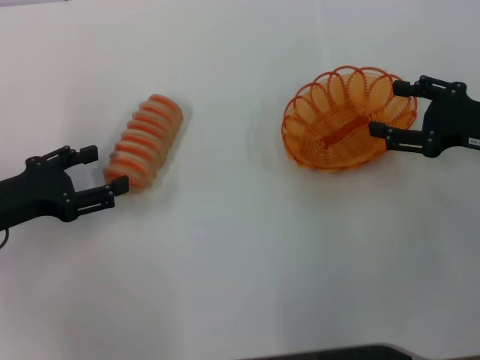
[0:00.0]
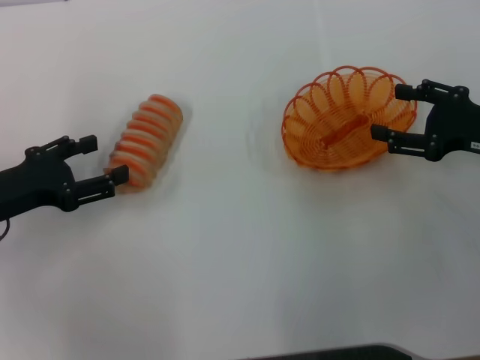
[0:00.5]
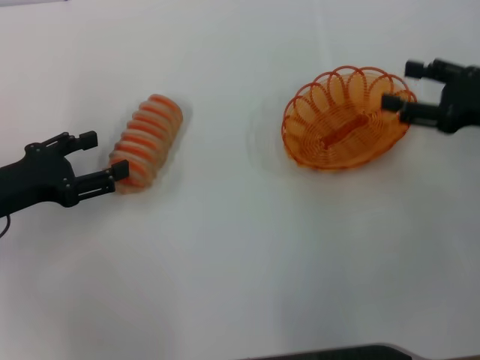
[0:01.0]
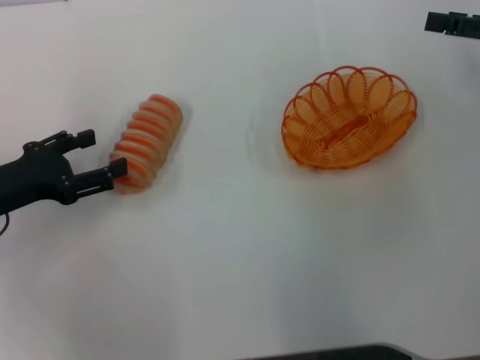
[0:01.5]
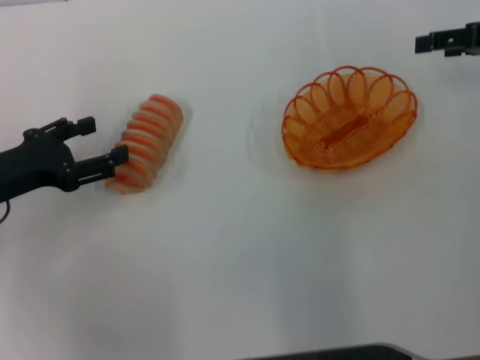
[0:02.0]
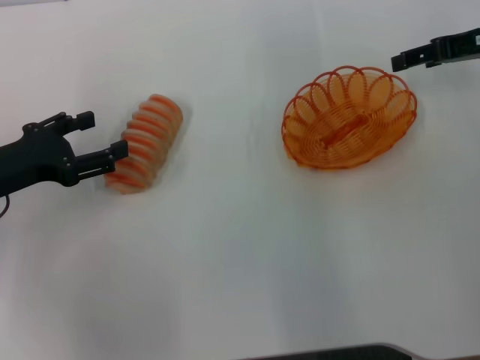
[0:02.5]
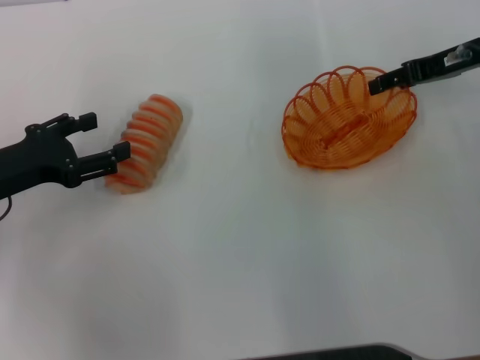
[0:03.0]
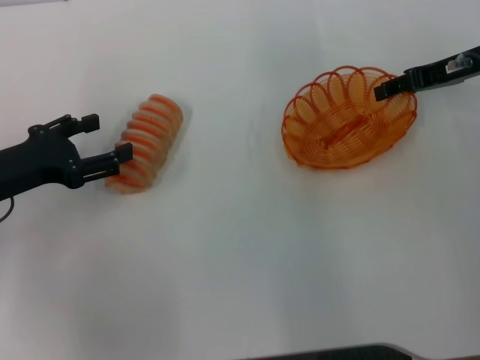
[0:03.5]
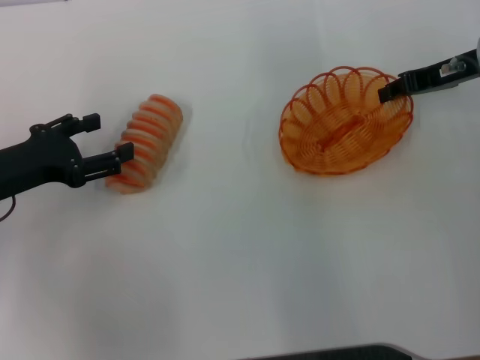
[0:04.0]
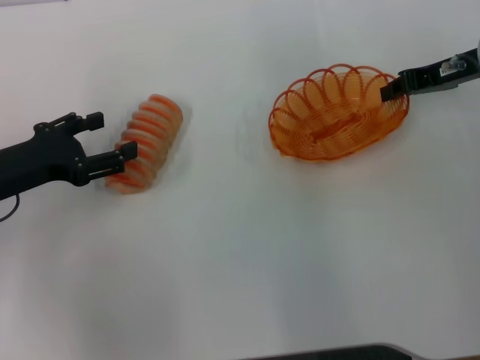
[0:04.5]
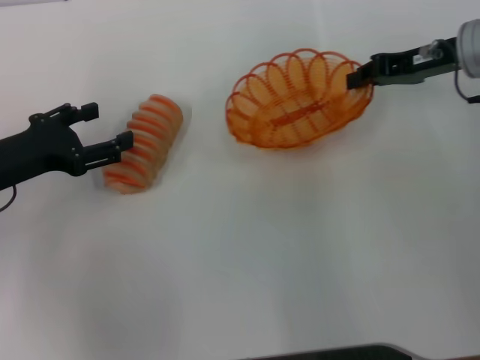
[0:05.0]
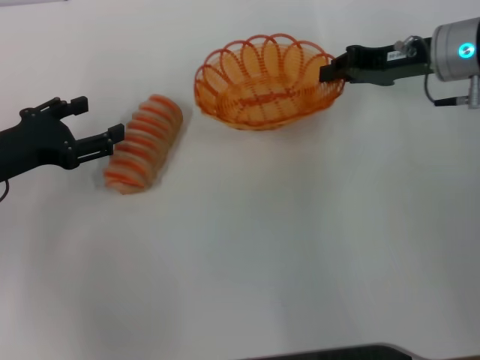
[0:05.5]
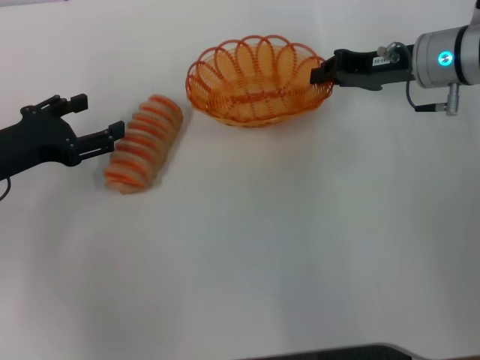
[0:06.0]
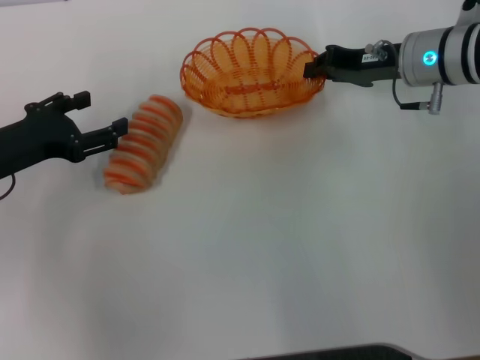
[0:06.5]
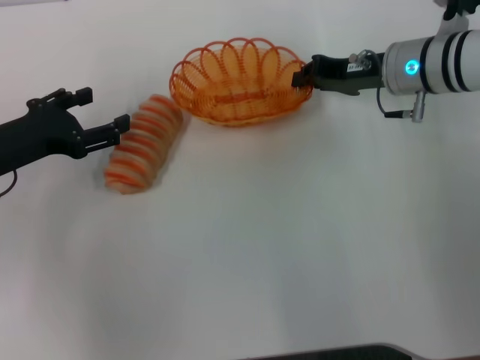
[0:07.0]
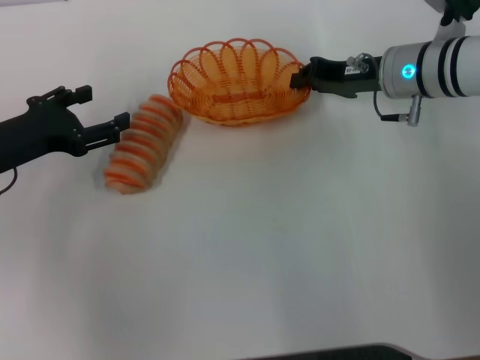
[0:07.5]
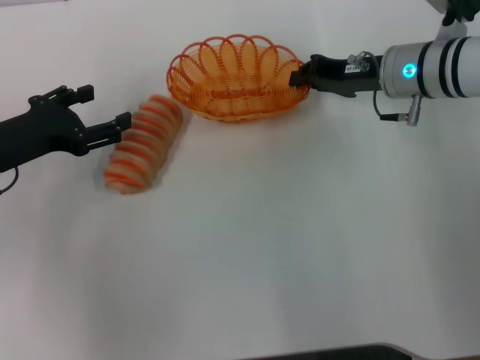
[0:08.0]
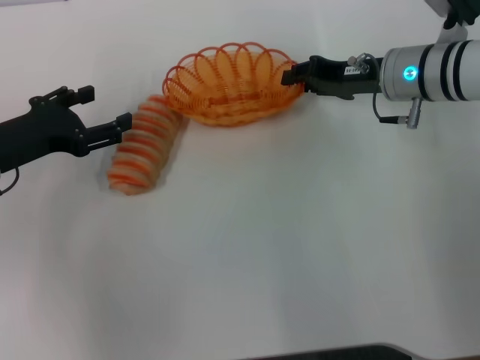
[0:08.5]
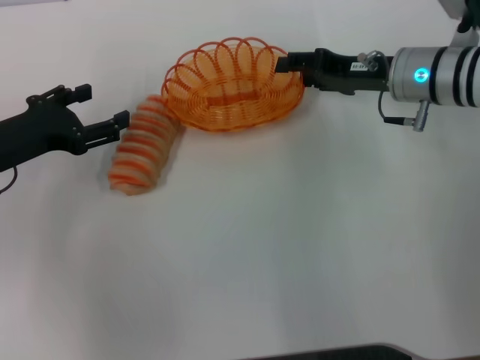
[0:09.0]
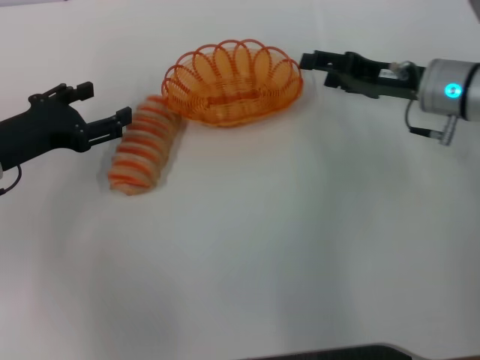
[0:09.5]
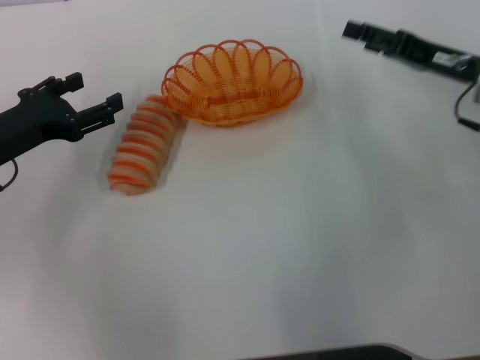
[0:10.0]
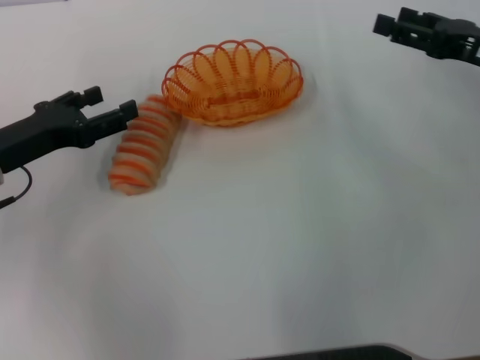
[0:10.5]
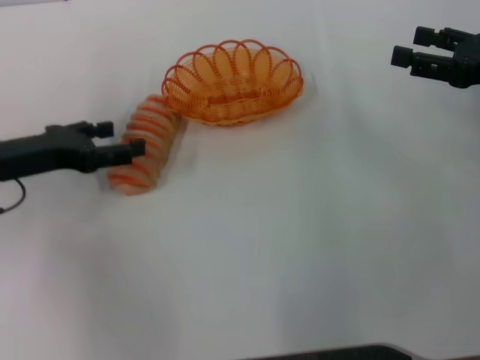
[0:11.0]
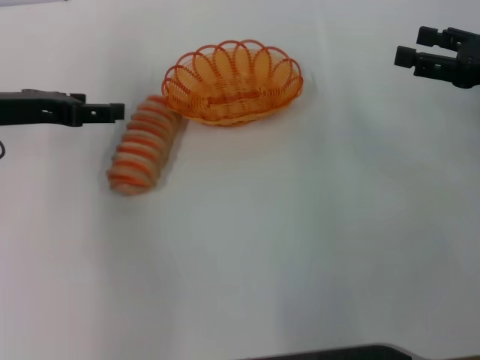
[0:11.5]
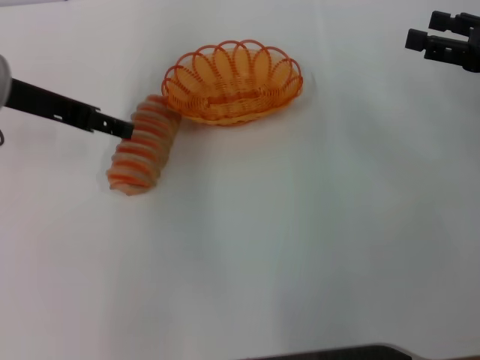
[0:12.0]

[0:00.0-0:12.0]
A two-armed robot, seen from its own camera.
Step, 0:00.0 to 0:04.5: Pick up the basket with the right gripper.
Step, 0:05.0 to 0:09.0: Place the basket in the center of view with the right gripper.
0:00.0 to 0:02.0: The right gripper is displaced upward and forward by some 10 cm.
0:02.0 to 0:04.0: The right gripper shifts some 5 cm to the left, and closes up.
0:04.0 to 0:06.0: The right gripper shifts about 5 cm to the left, and closes.
0:06.0 to 0:08.0: The grippers stay close to where they were, moving slightly.
0:08.0 to 0:10.0: The right gripper moves to the right and backward, some 10 cm, and opens its fingers.
0:10.0 to 0:12.0: The left gripper travels upward and to the right by some 10 cm. Meanwhile the right gripper moves to the right, about 5 cm.

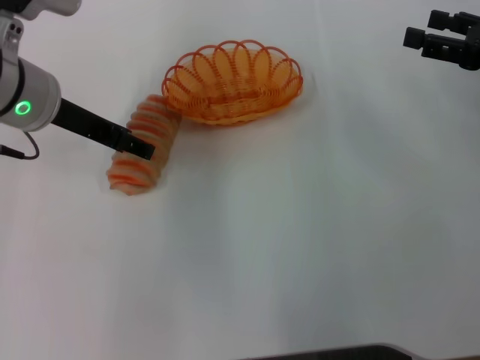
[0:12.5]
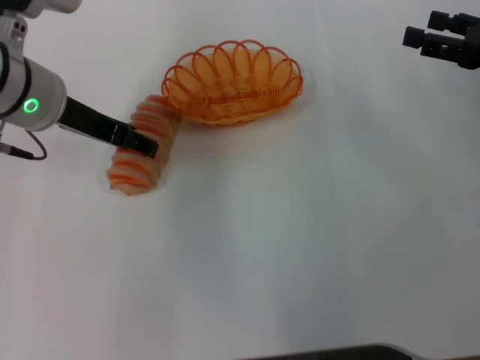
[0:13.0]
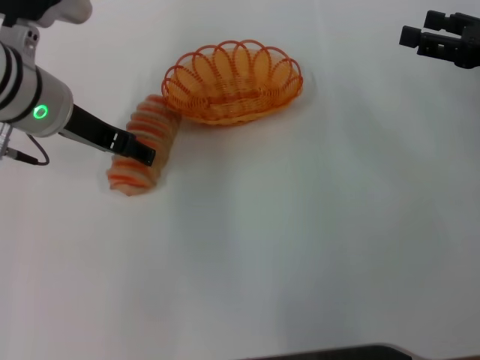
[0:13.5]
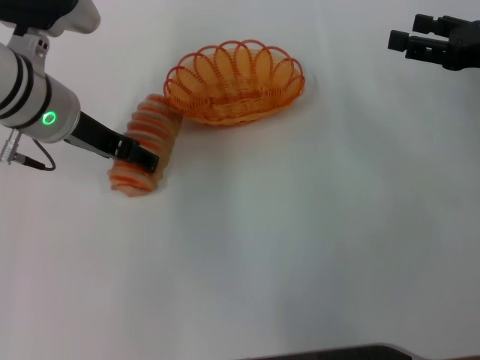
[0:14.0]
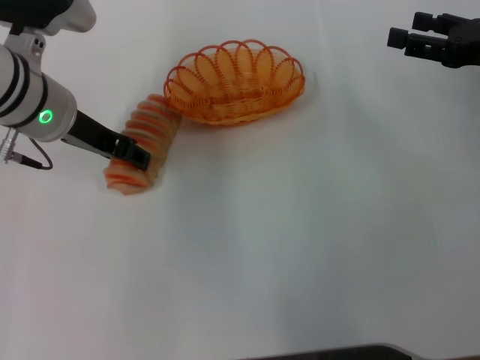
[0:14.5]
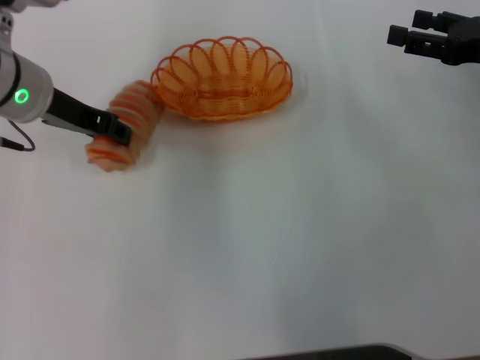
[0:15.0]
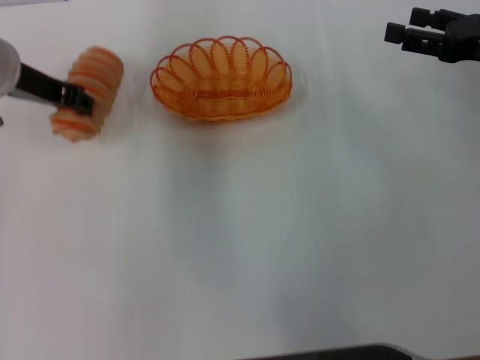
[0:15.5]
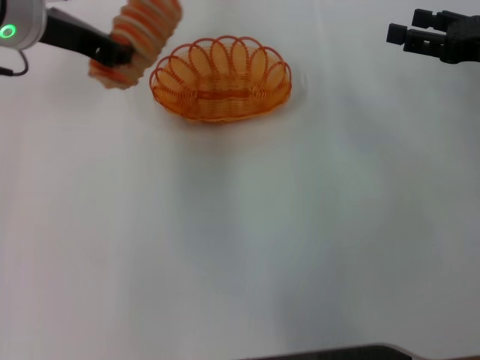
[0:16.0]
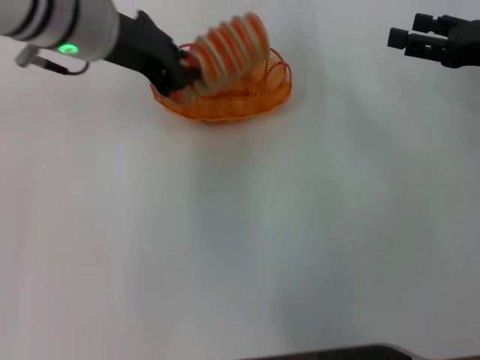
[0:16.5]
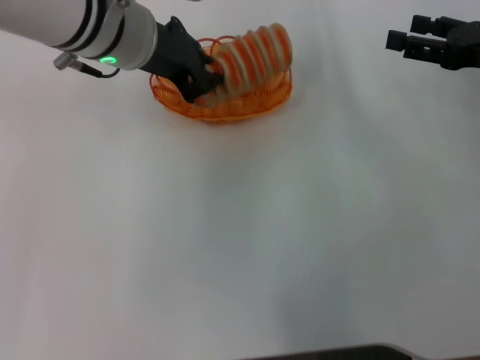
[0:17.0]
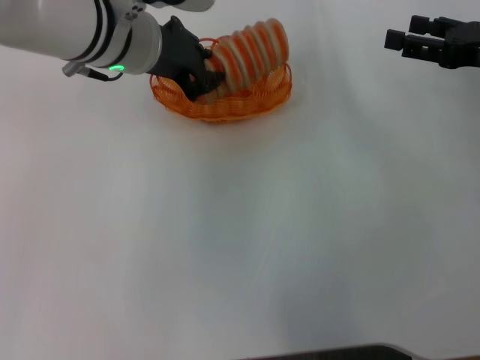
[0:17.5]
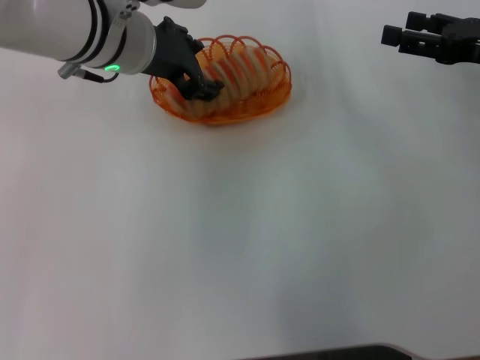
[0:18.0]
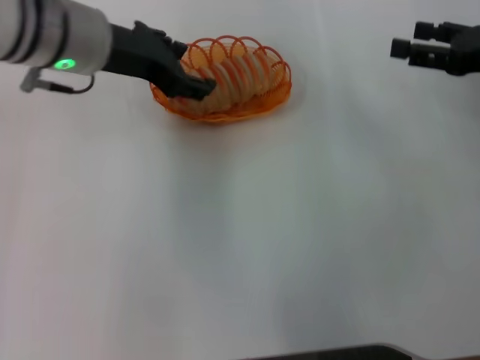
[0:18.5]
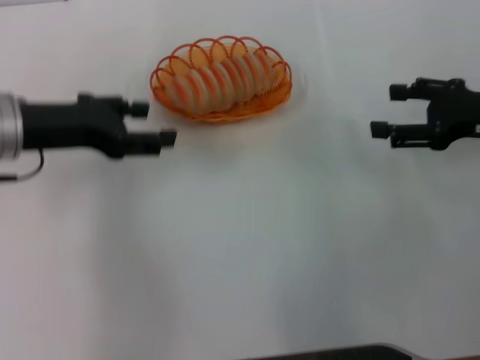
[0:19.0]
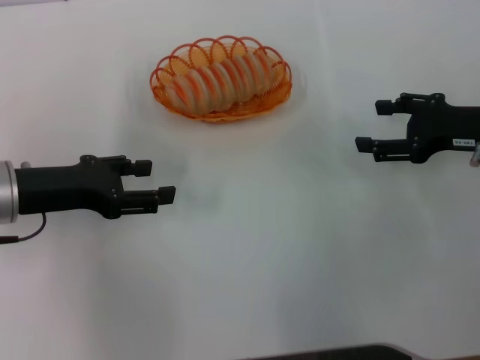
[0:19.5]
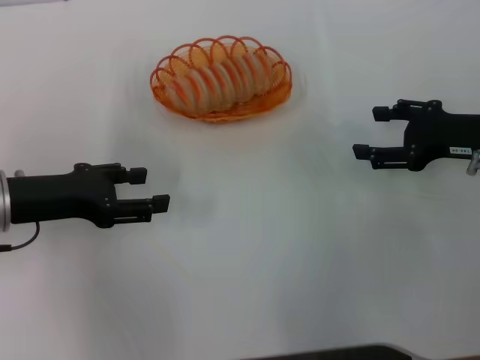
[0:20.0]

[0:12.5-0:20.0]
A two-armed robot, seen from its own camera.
Step, 0:12.5 to 0:15.0: Pick up the long bread with the left gripper.
Step, 0:15.5 to 0:18.5: Place the long bread into the basket with the left gripper.
0:12.5 to 0:14.5: The grippers make only small movements.
0:14.5 to 0:16.5: The left gripper heads upward, covering some 5 cm, and closes.
0:16.5 to 0:18.0: The left gripper opens its fingers.
0:18.0 to 0:20.0: The right gripper ends up approximately 5 cm from where it was; the left gripper goes about 20 cm to the left, backward and downward, and opens.
